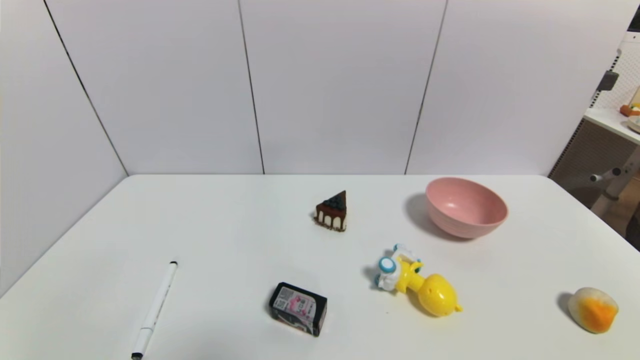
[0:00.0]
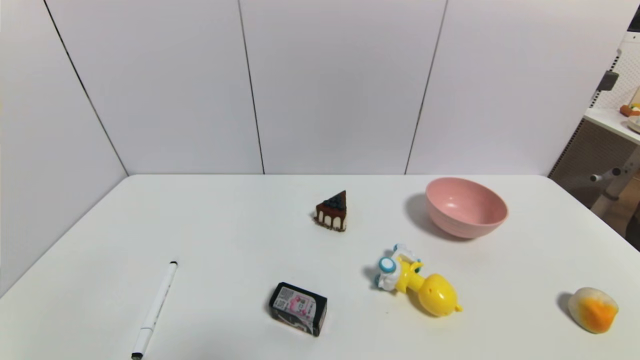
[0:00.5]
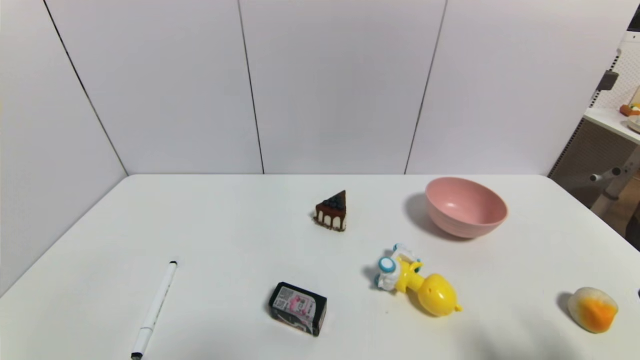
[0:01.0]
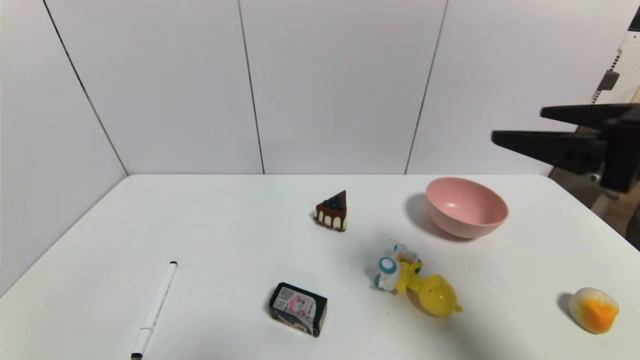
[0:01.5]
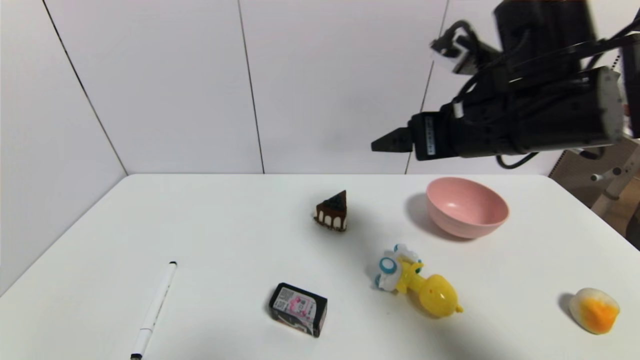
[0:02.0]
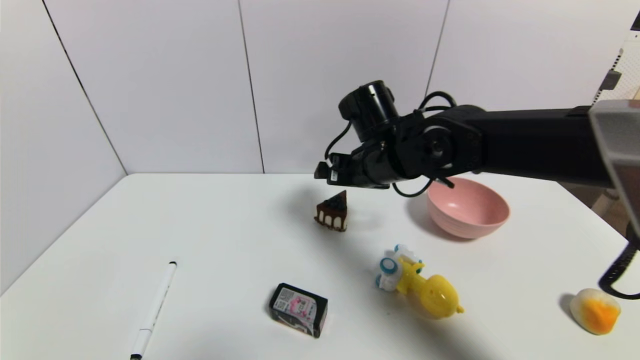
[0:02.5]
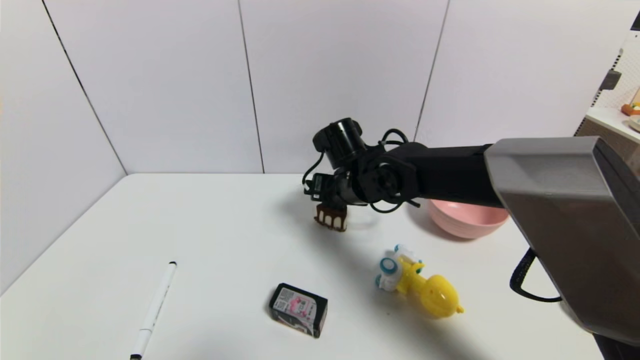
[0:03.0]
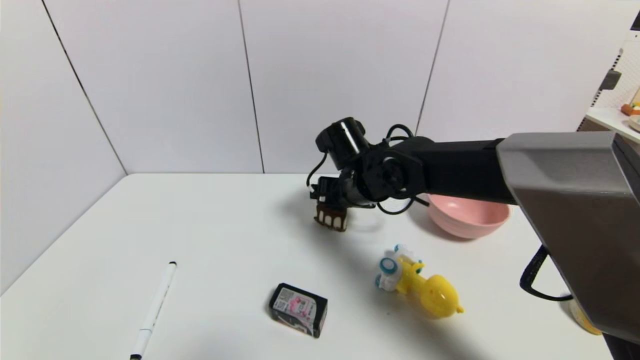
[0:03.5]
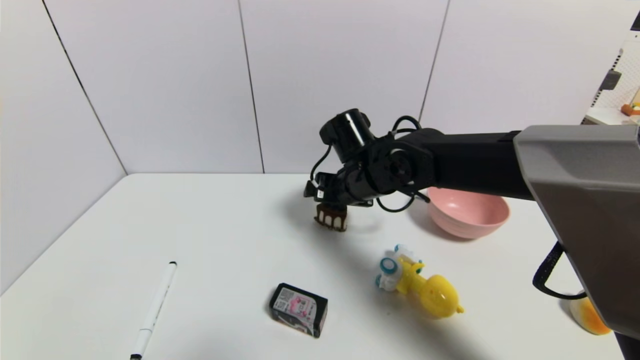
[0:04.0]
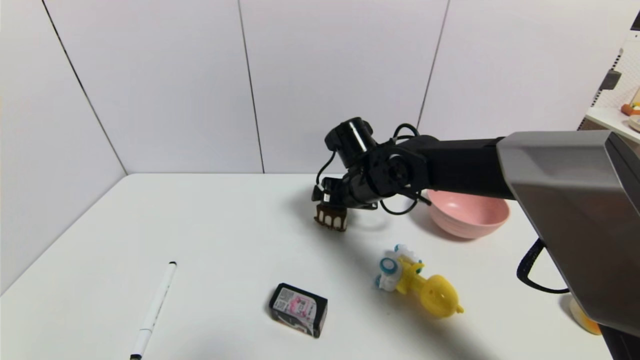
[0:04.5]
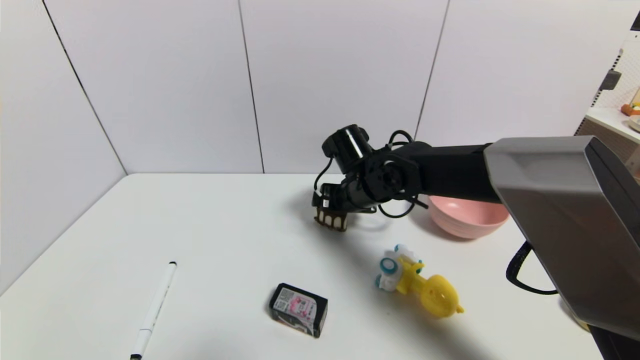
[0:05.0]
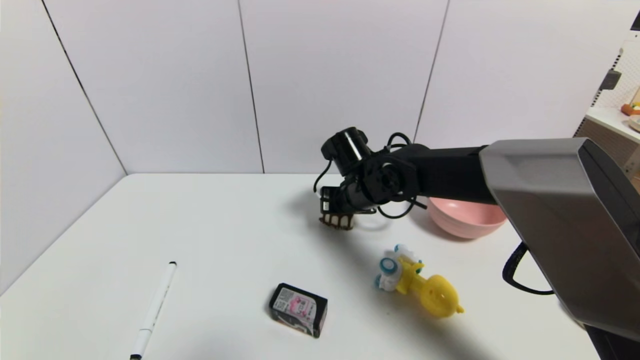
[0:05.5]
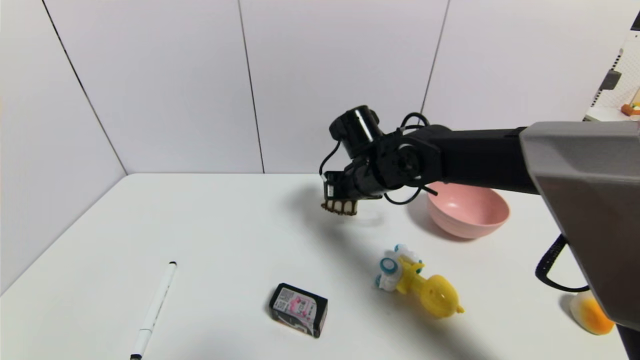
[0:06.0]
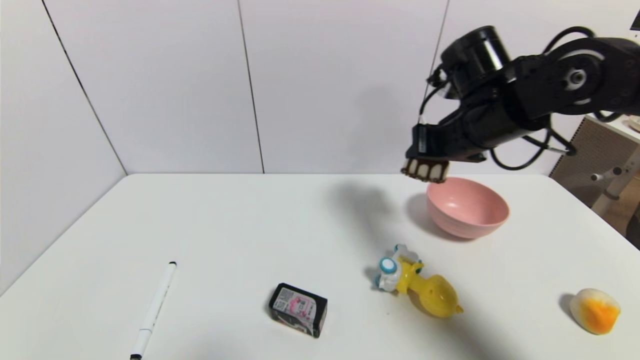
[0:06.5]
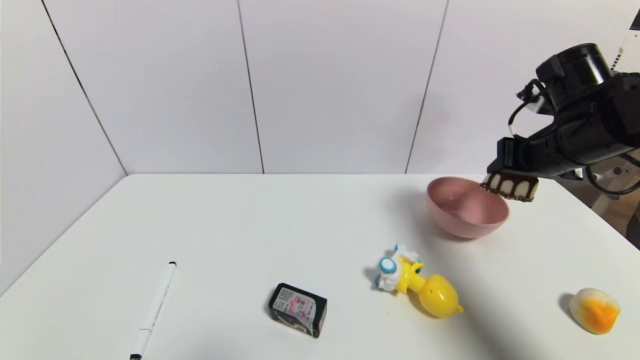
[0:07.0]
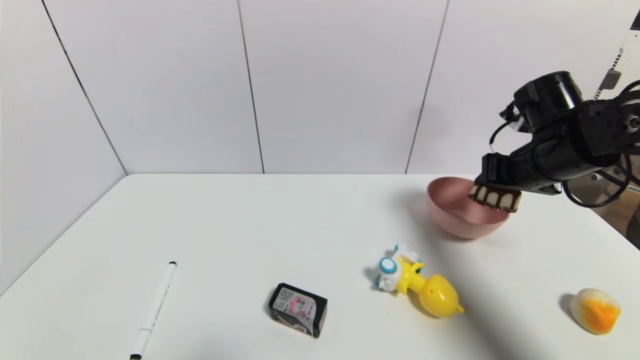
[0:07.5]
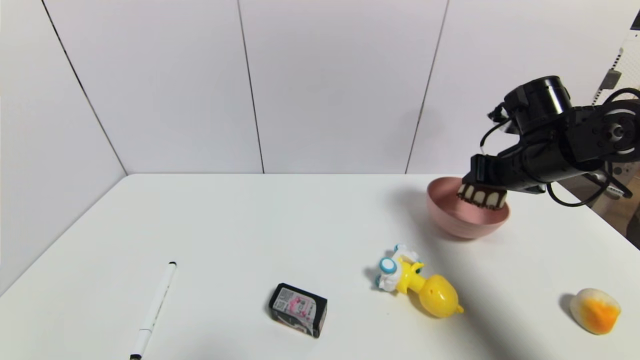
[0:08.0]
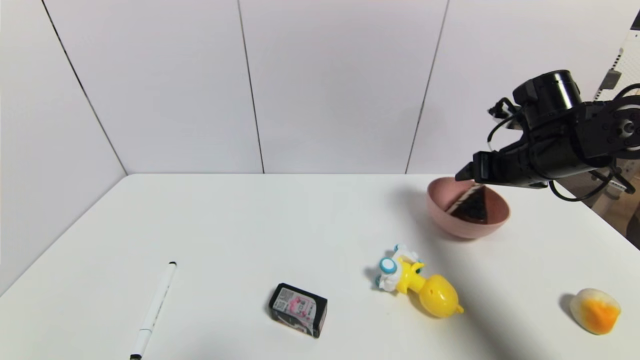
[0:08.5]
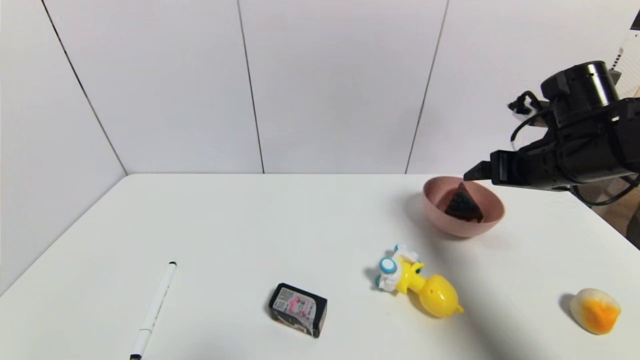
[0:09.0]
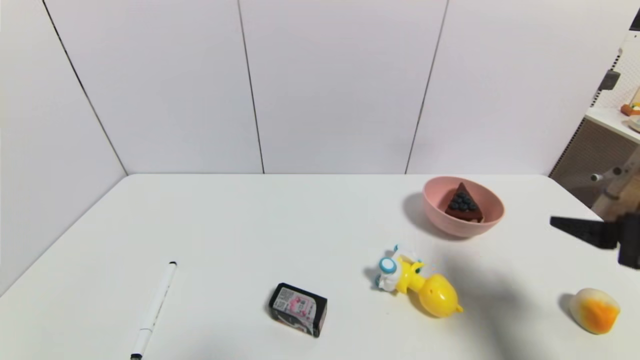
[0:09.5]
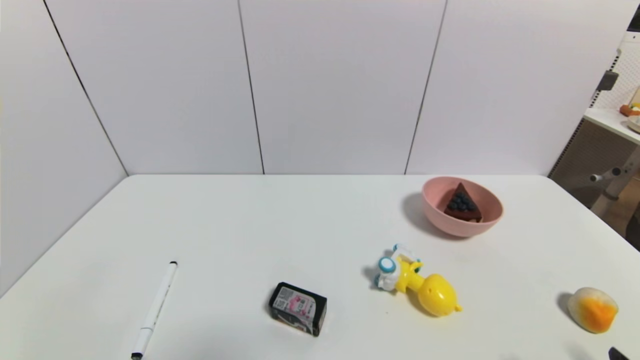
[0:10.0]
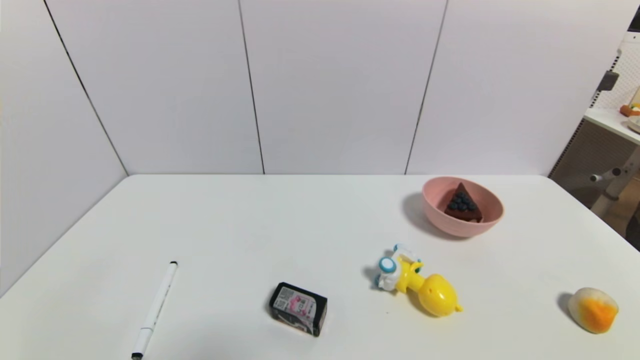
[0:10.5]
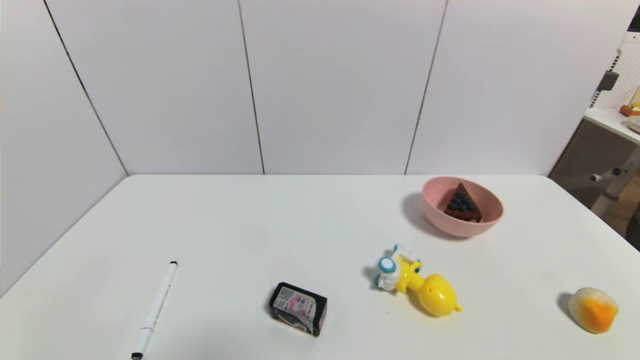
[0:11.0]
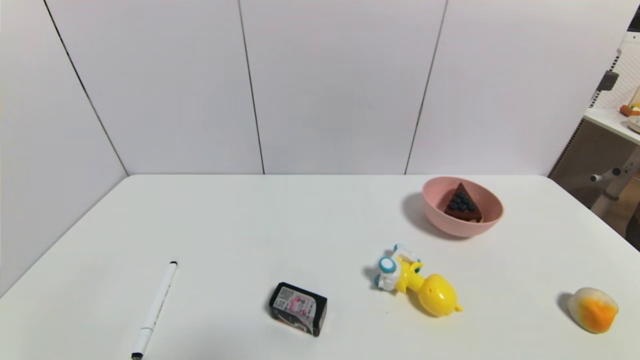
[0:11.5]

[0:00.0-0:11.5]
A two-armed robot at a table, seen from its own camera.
Task of the whole recording: use a gripper to pick the target object and place on the pink bowl.
Step, 0:00.0 to 0:05.0: Grasp the chocolate cake with the right gripper.
Step, 0:05.5 to 0:08.5: Place the chocolate cake on the pink bowl with the right gripper.
0:00.0 to 0:02.0: The right gripper moves forward, upward and to the left, approximately 40 cm.
0:02.0 to 0:04.0: The right gripper shifts about 20 cm downward, to the left and forward.
0:04.0 to 0:06.0: The right gripper closes its fingers.
0:06.0 to 0:07.5: The right gripper heads to the right, covering some 25 cm.
0:07.5 to 0:09.5: The right gripper is displaced backward by about 20 cm, and opens up.
0:09.5 to 0:11.5: The right gripper is displaced downward and backward by about 20 cm.
